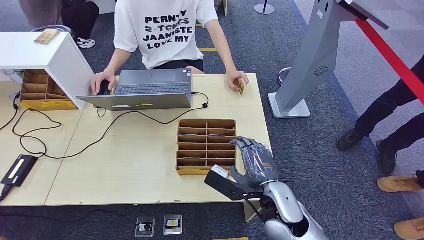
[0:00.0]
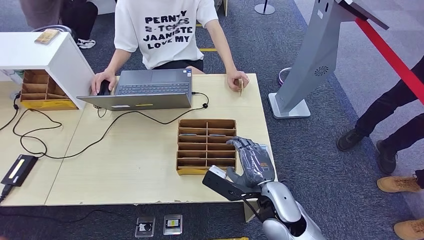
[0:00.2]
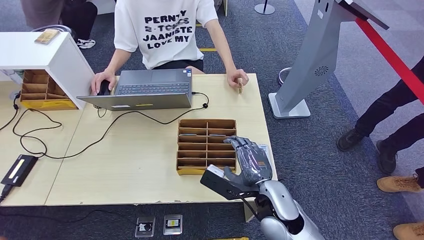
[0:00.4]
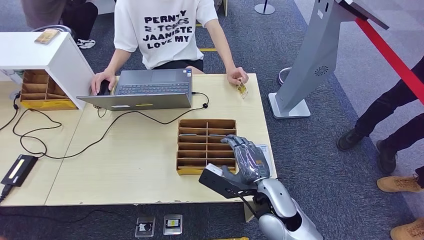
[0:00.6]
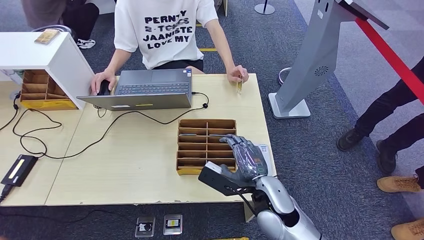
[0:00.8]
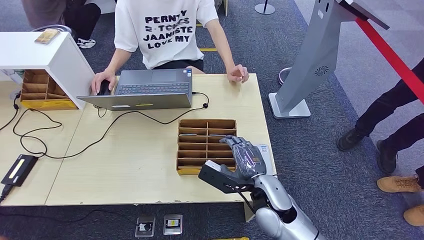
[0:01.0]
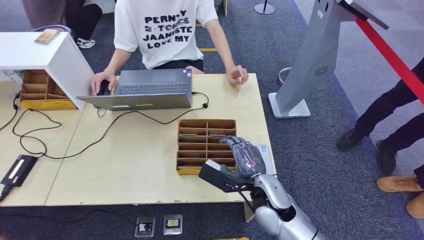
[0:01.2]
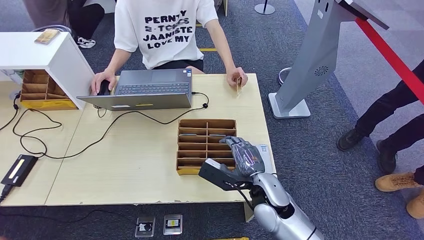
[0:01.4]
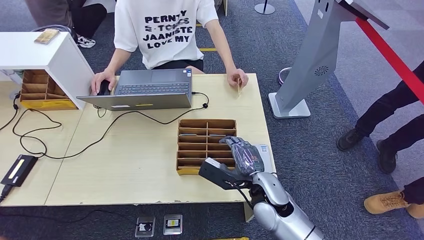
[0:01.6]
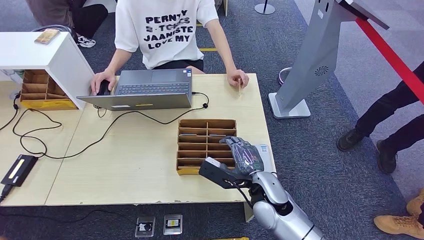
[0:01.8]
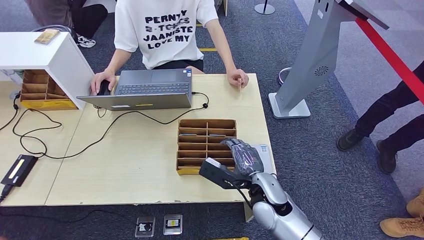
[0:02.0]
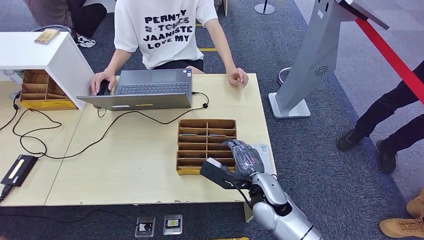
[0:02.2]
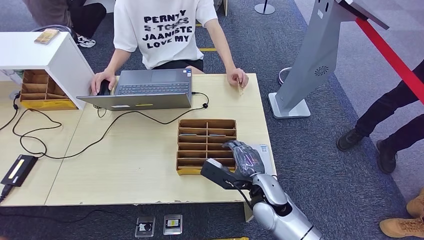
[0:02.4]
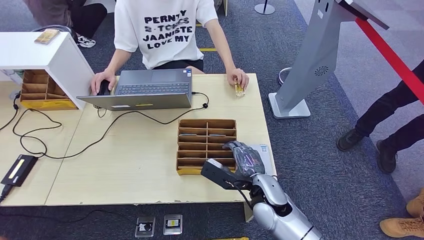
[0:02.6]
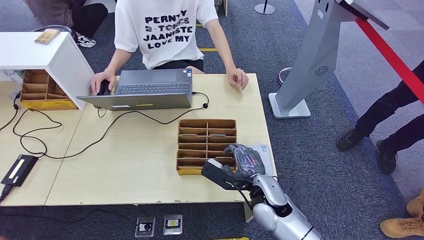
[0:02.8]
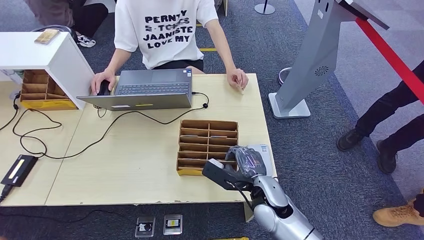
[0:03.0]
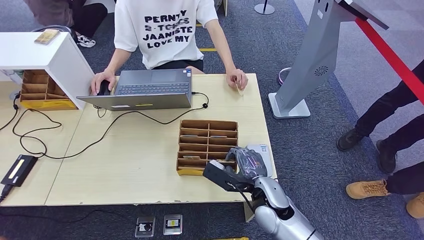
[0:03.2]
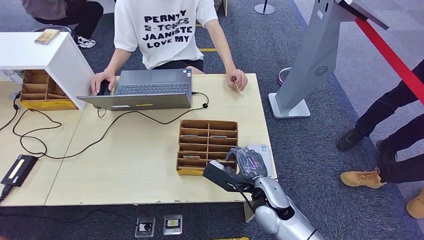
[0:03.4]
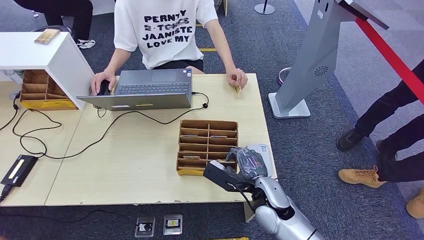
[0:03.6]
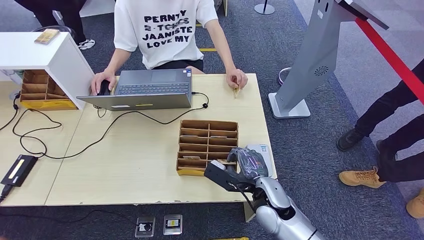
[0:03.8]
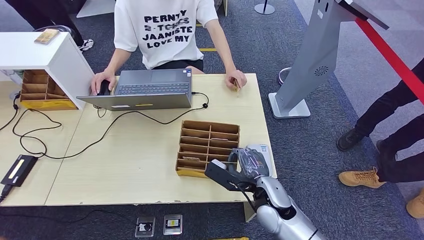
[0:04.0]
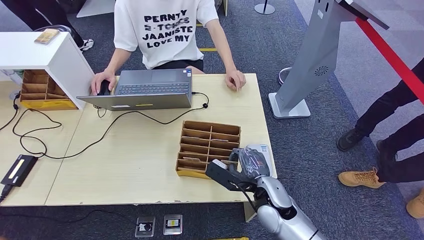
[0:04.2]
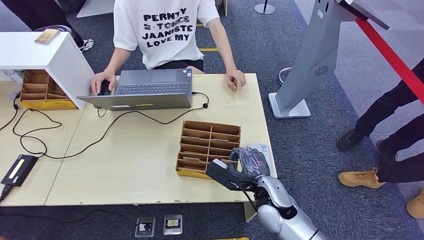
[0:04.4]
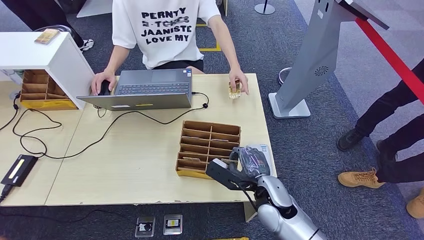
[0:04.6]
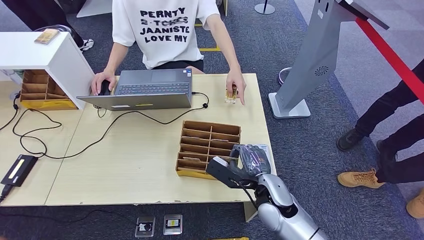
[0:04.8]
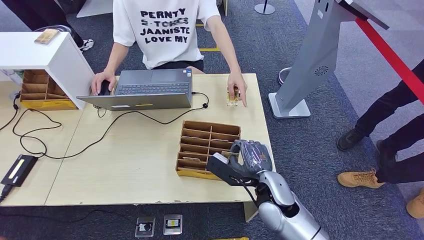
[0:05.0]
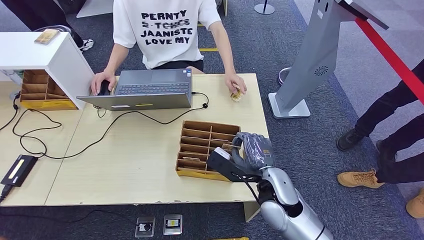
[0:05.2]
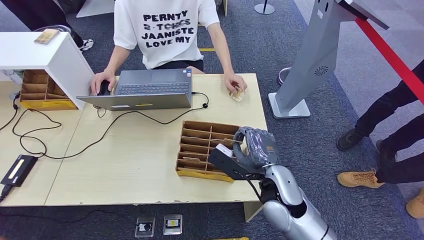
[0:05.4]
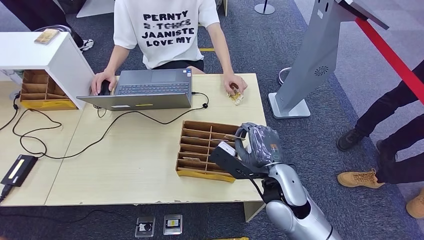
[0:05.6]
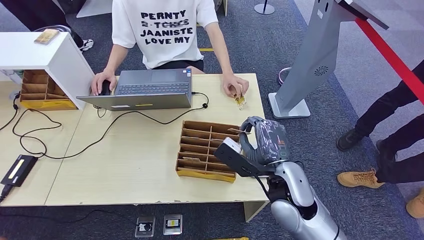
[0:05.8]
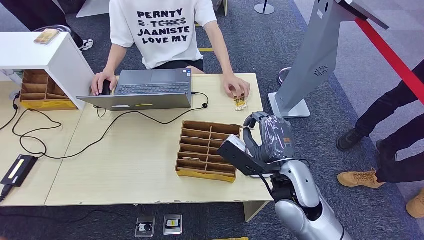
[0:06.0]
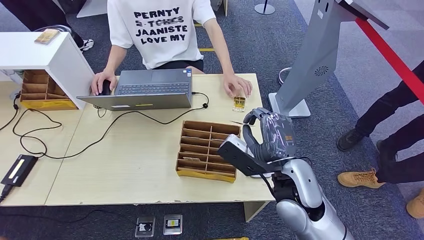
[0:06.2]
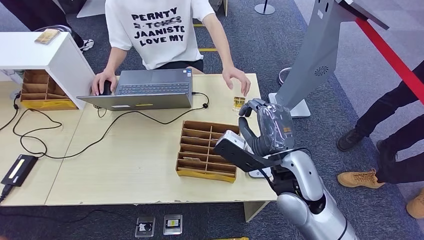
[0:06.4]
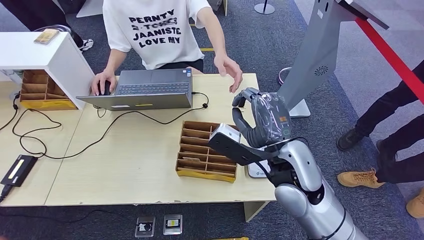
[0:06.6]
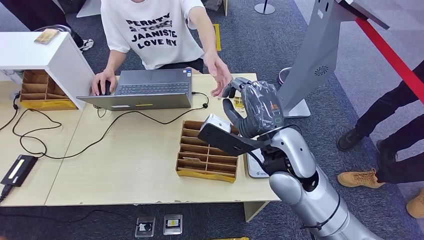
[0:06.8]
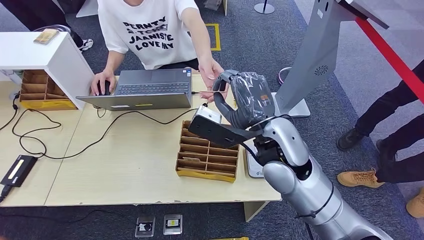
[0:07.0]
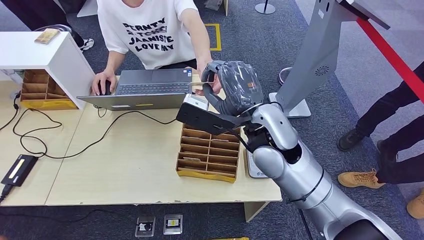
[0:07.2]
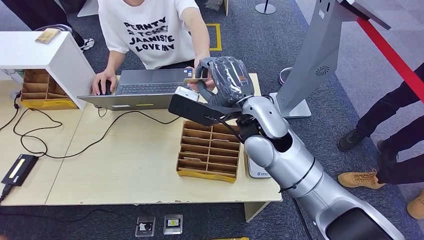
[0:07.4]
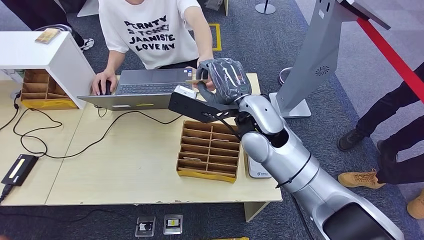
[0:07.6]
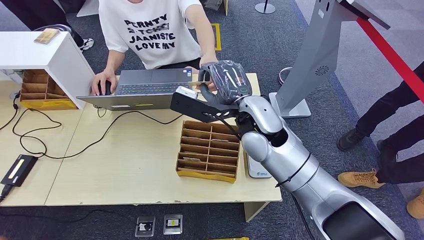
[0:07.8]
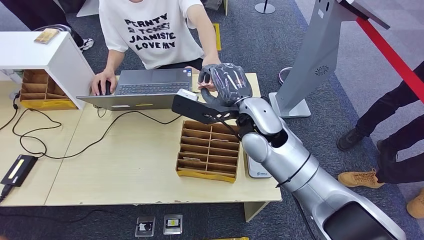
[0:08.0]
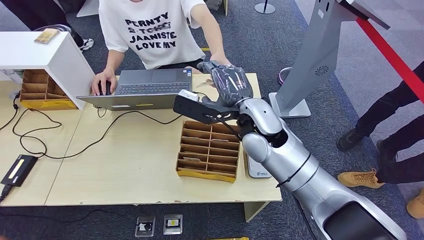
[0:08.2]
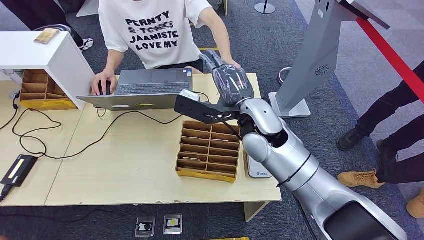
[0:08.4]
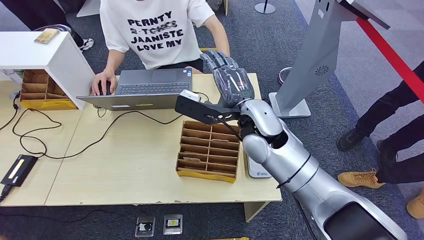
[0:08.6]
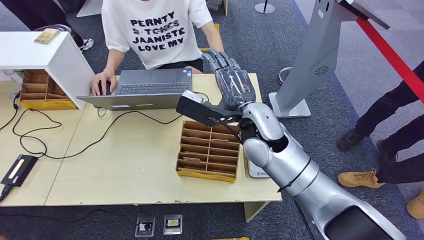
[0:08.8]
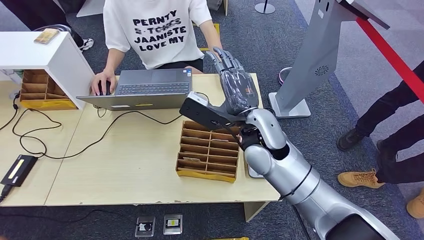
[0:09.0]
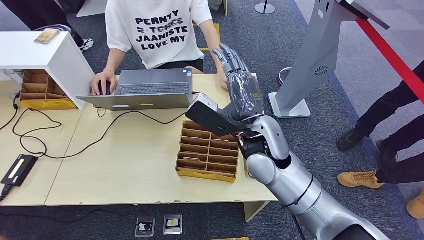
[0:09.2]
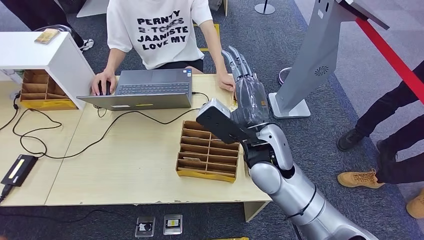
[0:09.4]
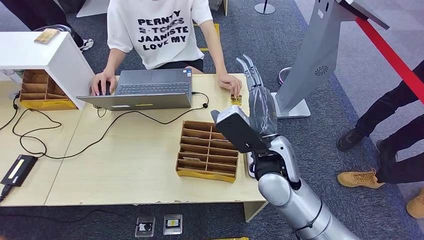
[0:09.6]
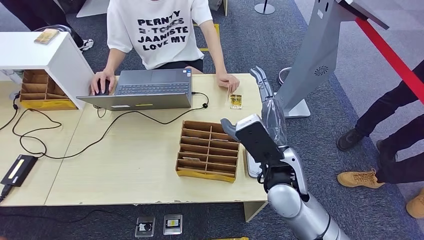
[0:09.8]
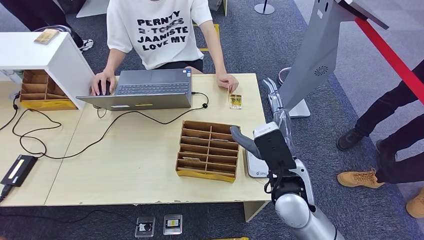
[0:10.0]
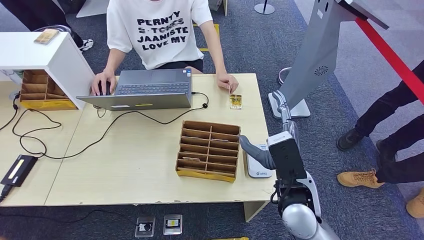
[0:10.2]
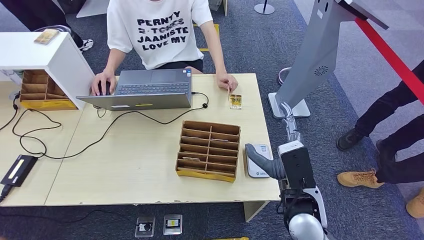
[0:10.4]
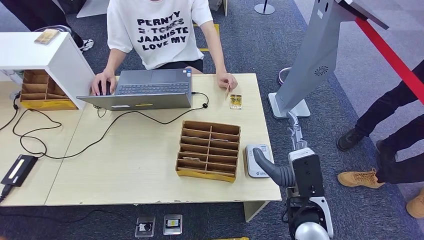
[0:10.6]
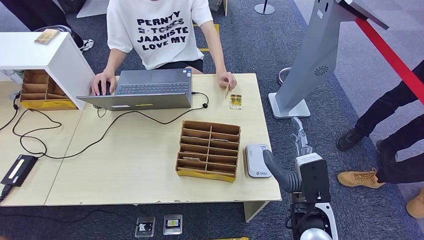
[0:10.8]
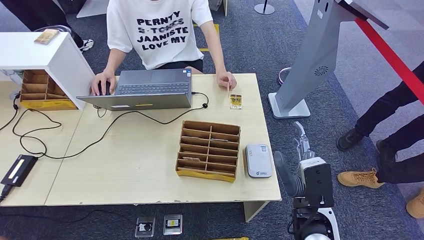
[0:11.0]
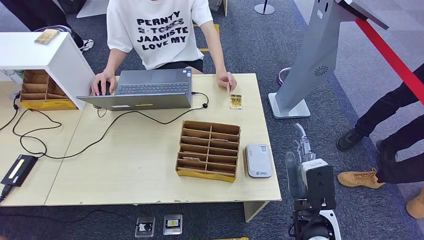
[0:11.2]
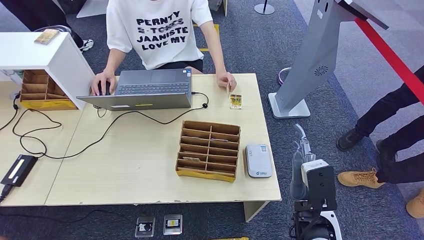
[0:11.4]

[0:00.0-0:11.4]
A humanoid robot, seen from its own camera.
Step, 0:02.6 to 0:06.6: Pick up the room key from the key card box.
Step, 0:07.0 to 0:11.4: Hand the room key to the person.
0:00.0 to 0:02.8: The hands stay close to where they were, moving slightly.
0:02.8 to 0:04.2: Both hands stay put.
0:04.2 to 0:05.6: The right hand is displaced upward by about 10 cm.
0:07.2 to 0:08.6: The right hand shifts by some 5 cm.
0:08.6 to 0:10.0: The right hand shifts roughly 15 cm backward, downward and to the right.
0:10.0 to 0:11.4: The right hand goes about 10 cm backward, to the right and downward.

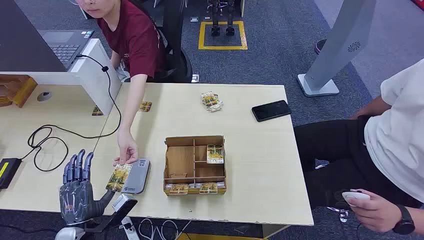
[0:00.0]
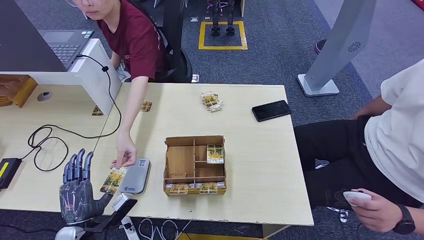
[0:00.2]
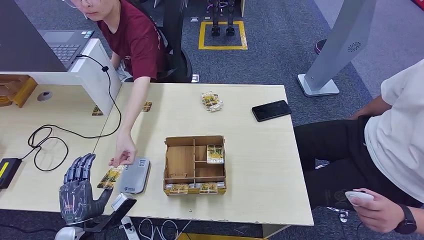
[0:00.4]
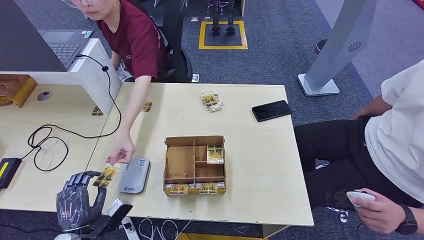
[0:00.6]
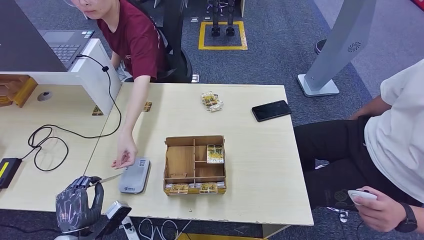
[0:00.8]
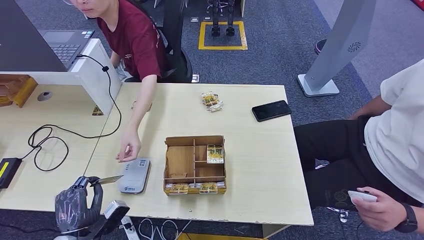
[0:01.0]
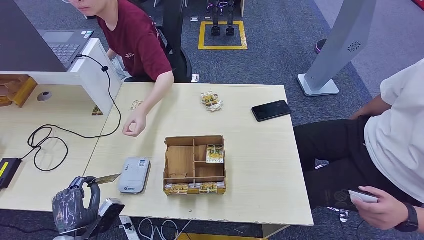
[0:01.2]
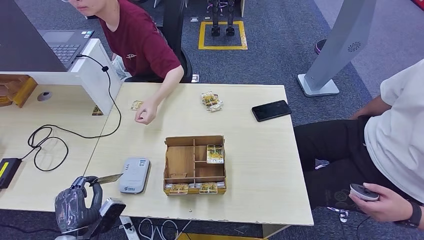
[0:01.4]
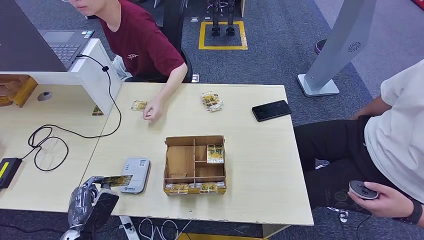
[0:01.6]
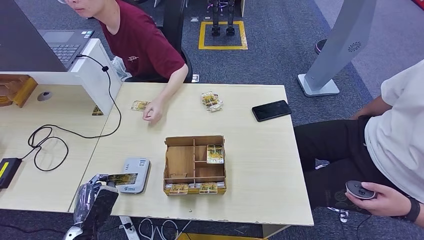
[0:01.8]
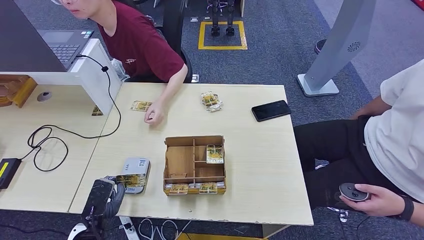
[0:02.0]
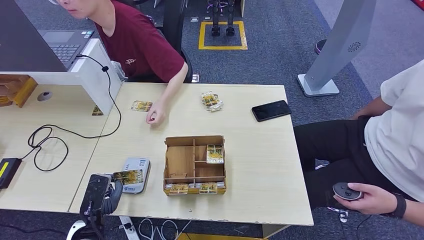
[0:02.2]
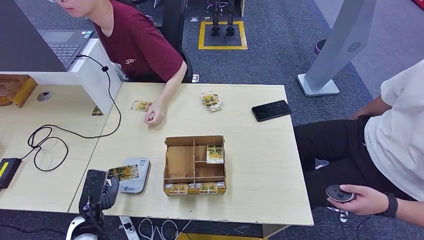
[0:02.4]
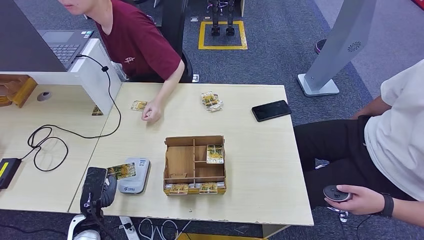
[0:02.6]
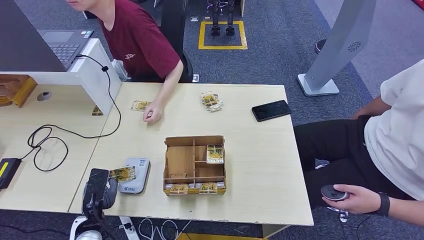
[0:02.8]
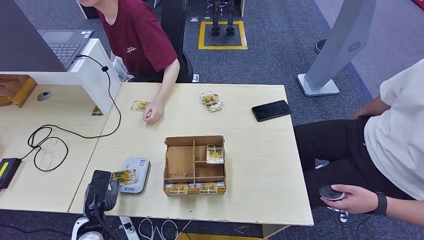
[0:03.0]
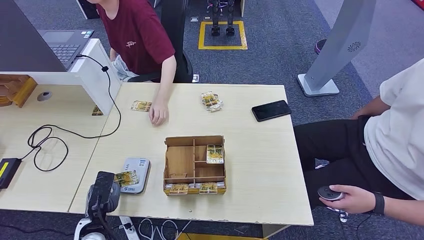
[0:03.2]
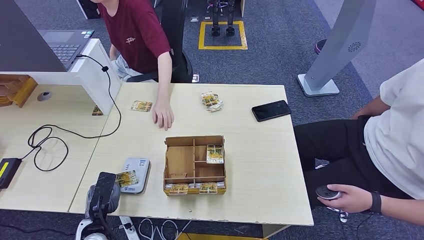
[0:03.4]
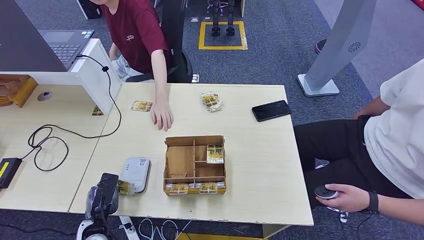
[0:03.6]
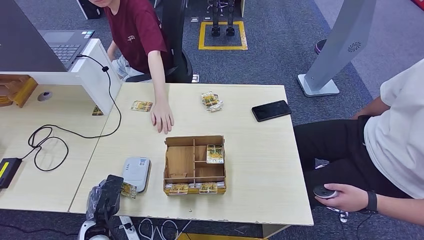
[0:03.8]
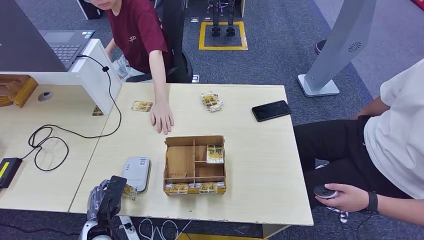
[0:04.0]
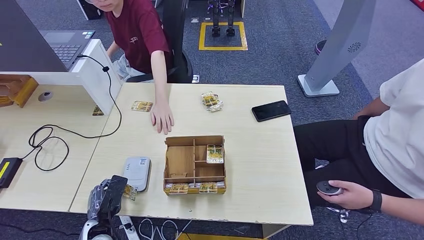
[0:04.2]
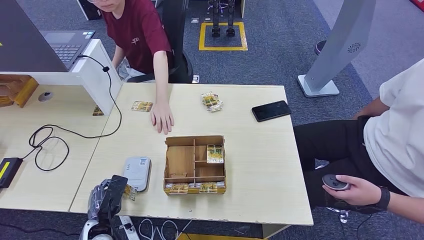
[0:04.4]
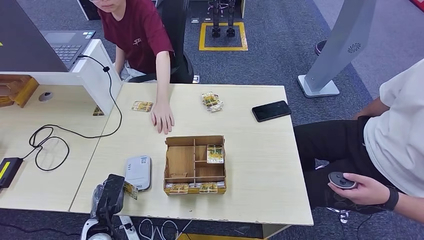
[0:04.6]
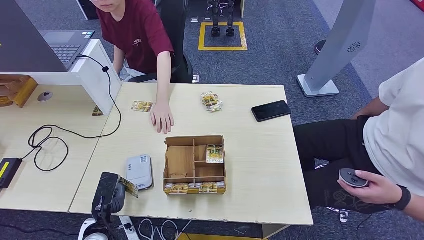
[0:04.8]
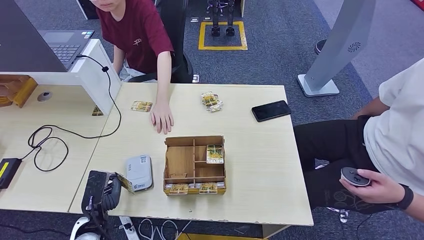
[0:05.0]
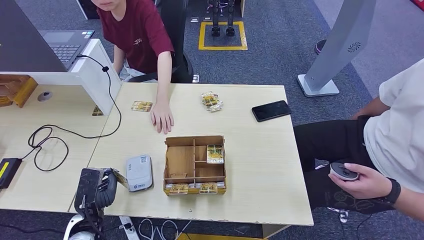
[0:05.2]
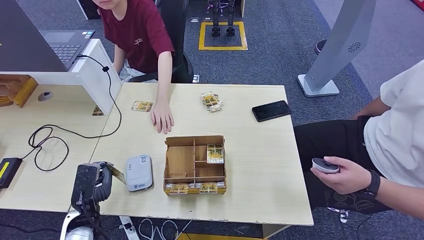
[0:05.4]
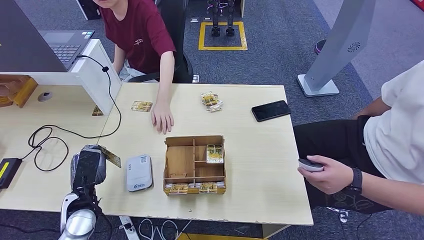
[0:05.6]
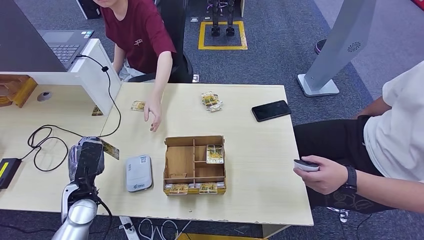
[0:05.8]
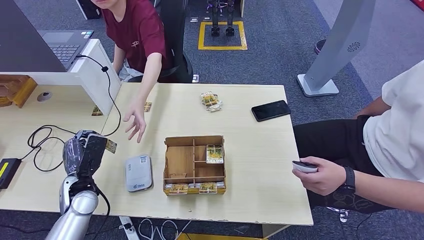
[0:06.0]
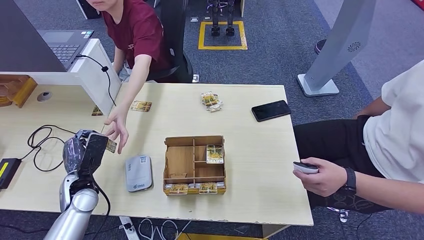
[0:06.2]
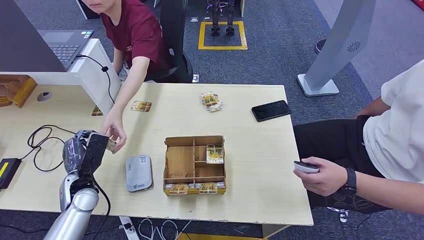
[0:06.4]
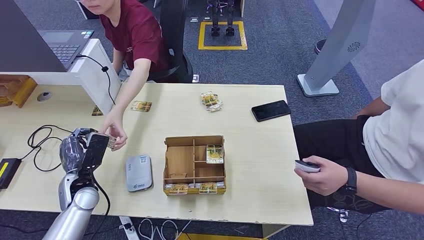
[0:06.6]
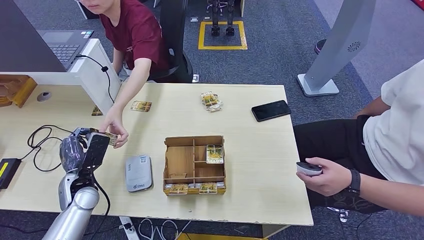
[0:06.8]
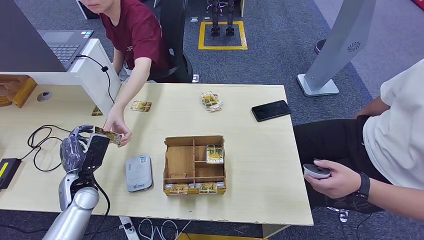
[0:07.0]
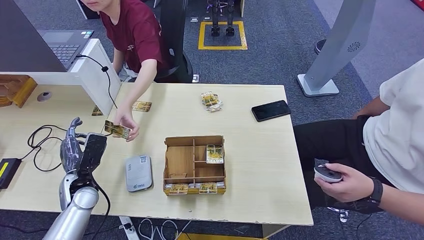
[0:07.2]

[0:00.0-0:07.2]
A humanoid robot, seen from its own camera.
Step, 0:00.0 to 0:00.8: Take the ID card from the person's hand.
Step, 0:01.0 to 0:02.8: Place the ID card on the card reader.
Step, 0:03.0 to 0:06.4: Hand the ID card to the person.
0:02.8 to 0:04.4: There are only small adjustments of the hands.
0:04.4 to 0:05.8: The left hand moves upward and forward, approximately 10 cm.
0:05.8 to 0:07.2: The hands stay close to where they were, moving slightly.
